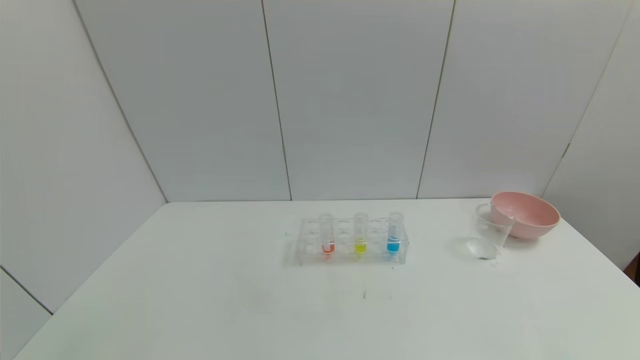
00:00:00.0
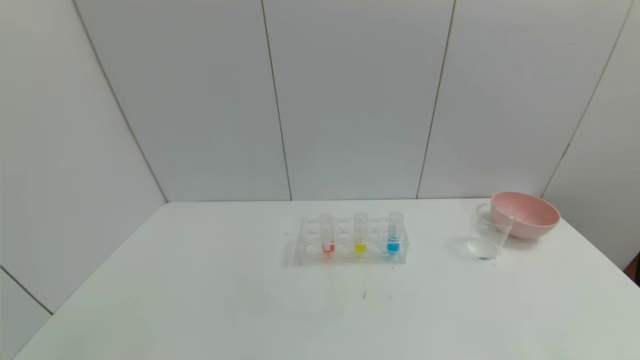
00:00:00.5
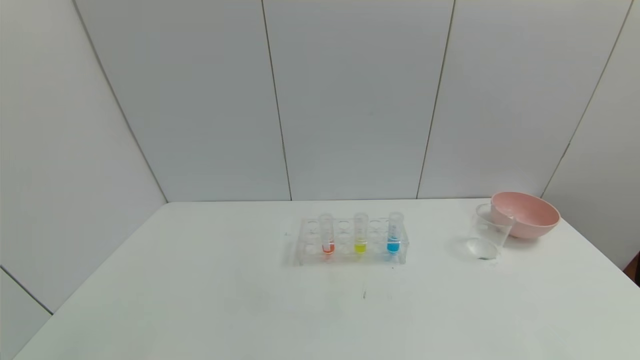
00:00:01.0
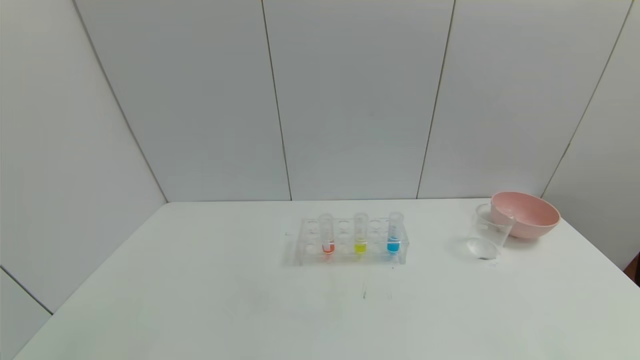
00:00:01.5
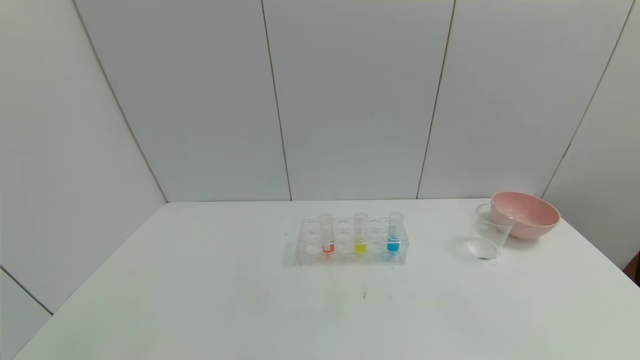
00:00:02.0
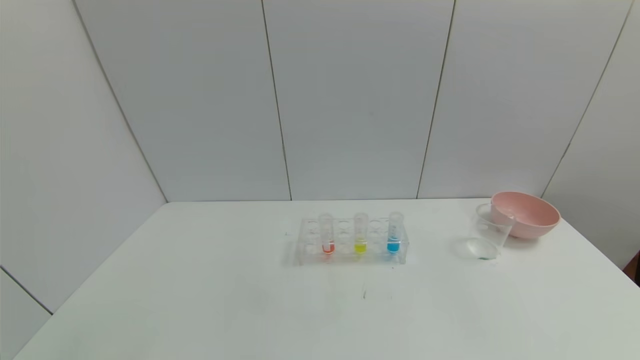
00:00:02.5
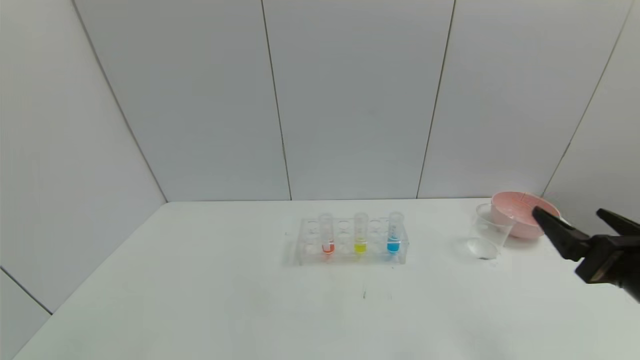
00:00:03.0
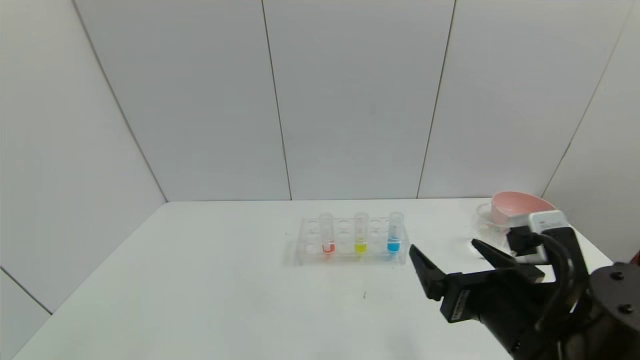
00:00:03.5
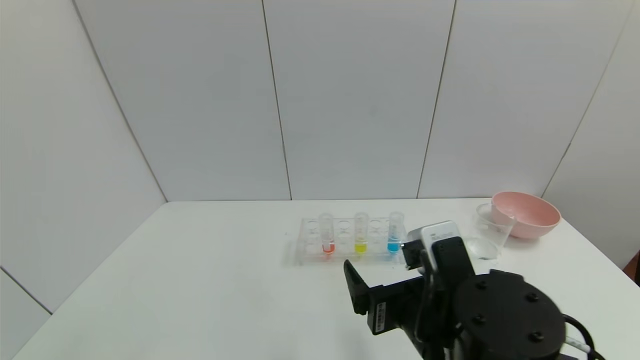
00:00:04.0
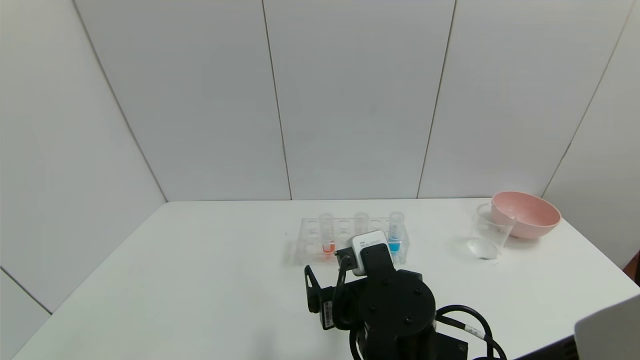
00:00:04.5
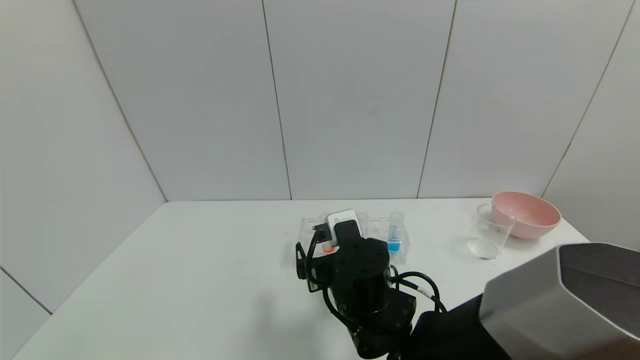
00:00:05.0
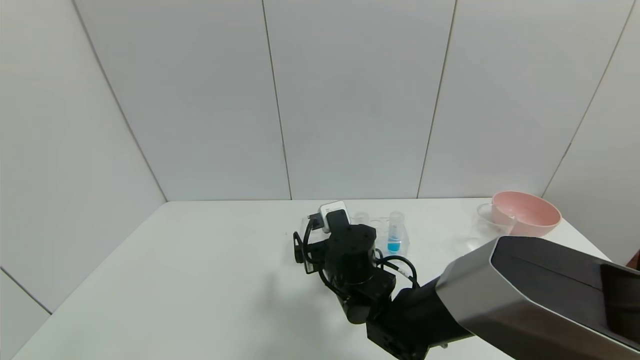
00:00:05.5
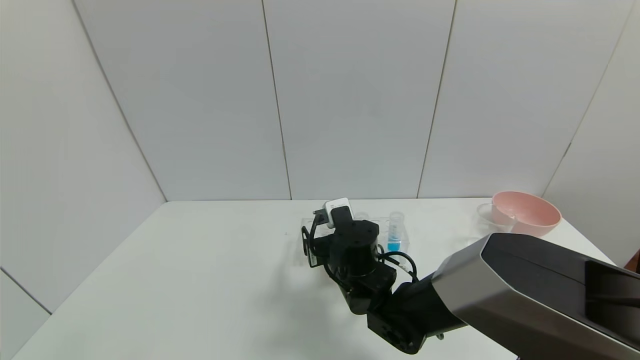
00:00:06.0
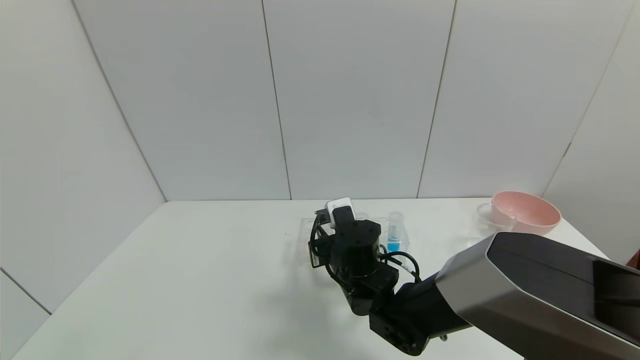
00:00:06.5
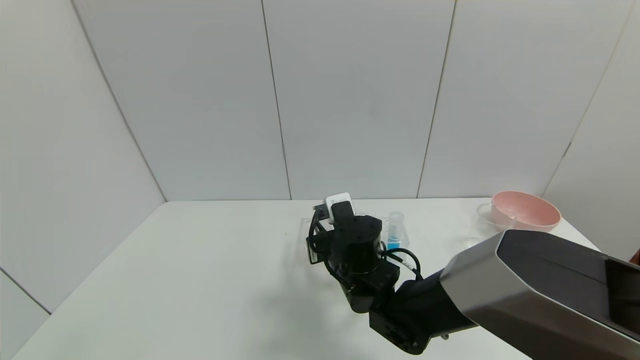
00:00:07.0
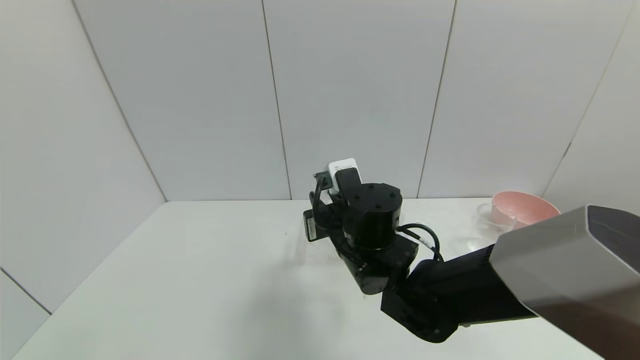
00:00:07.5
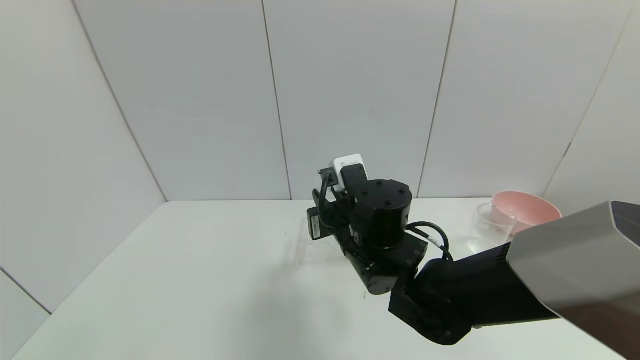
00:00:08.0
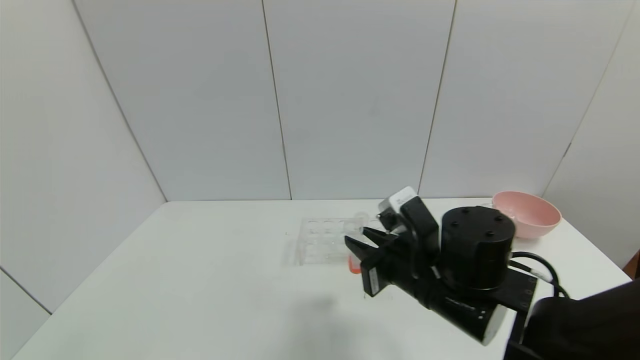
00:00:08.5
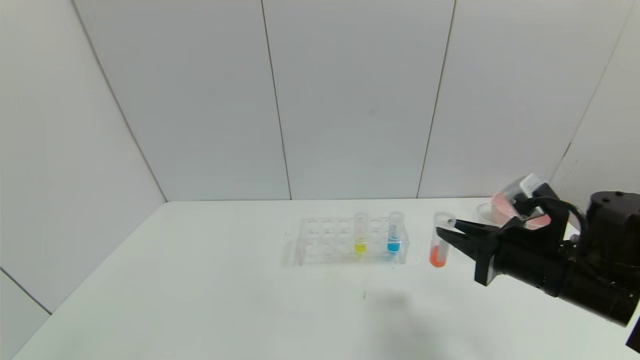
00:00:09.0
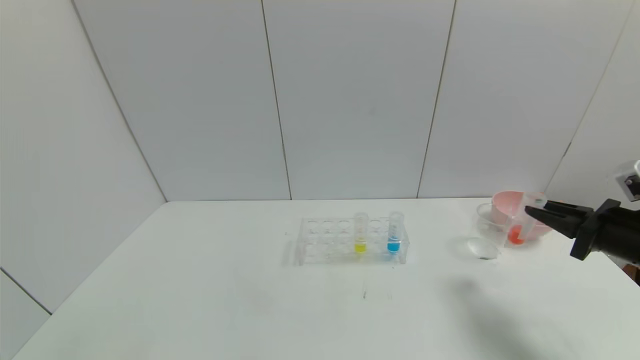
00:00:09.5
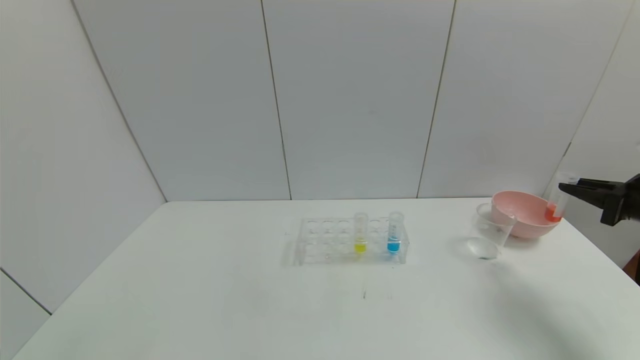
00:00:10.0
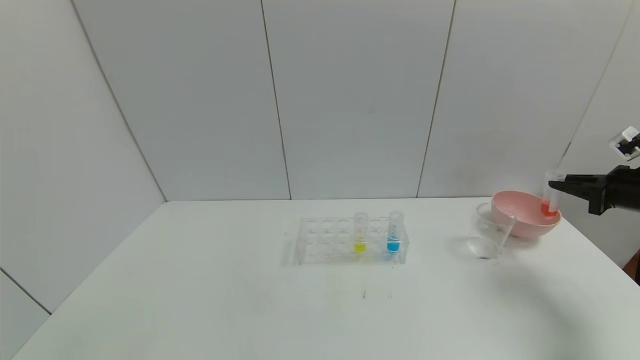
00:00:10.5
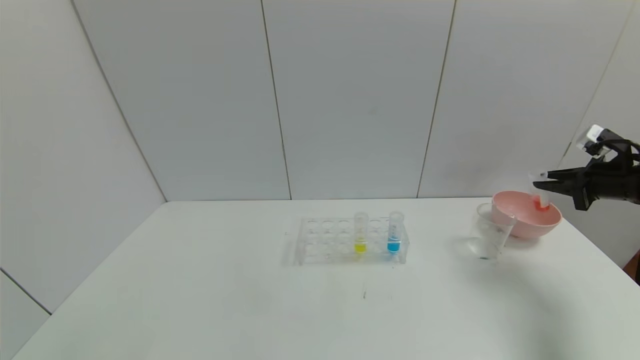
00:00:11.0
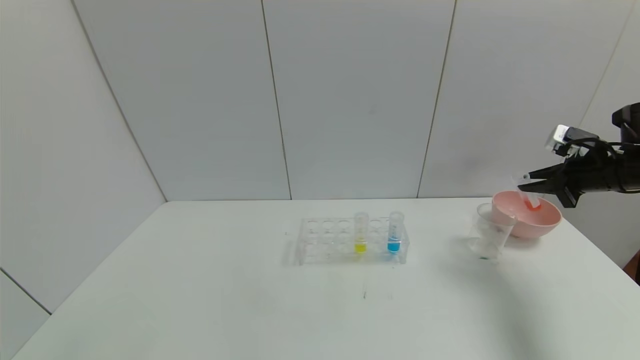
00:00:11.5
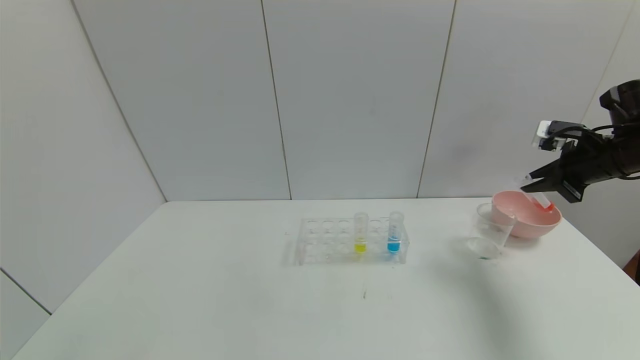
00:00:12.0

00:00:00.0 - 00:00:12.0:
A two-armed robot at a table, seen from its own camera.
Task of the whole recording: pick up the test tube with red pigment and the test tube with blue pigment by grippers and pour them into the container.
Step, 00:00:00.0 - 00:00:10.5: Pick up the test tube containing the red reagent with right gripper.
00:00:02.0 - 00:00:04.0: The right gripper goes approximately 30 cm to the left and forward.
00:00:04.0 - 00:00:06.0: The right gripper heads forward, to the left and downward, covering some 20 cm.
00:00:06.0 - 00:00:08.0: The right gripper is displaced upward by about 10 cm, and closes.
00:00:08.0 - 00:00:10.0: The right gripper travels to the right by approximately 40 cm.
00:00:10.0 - 00:00:12.0: The right gripper is displaced forward, to the left and upward by about 10 cm.

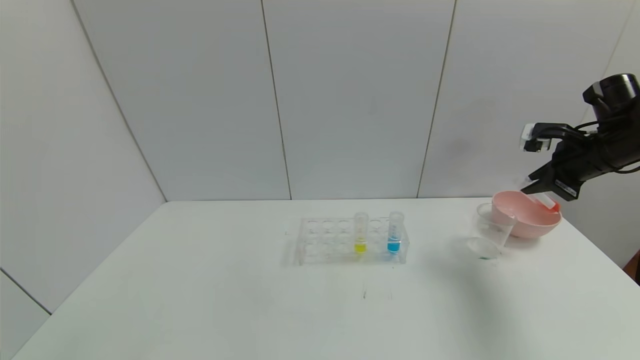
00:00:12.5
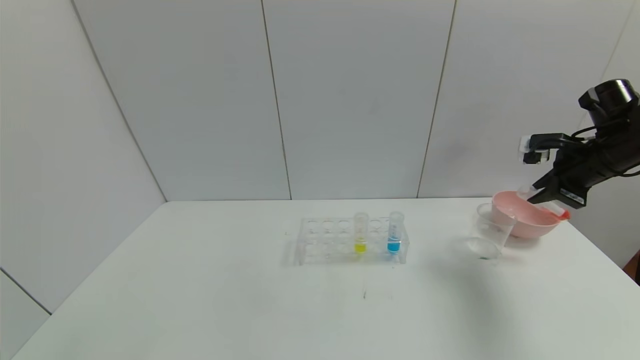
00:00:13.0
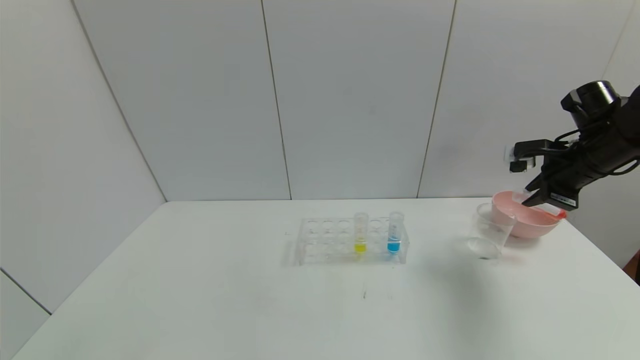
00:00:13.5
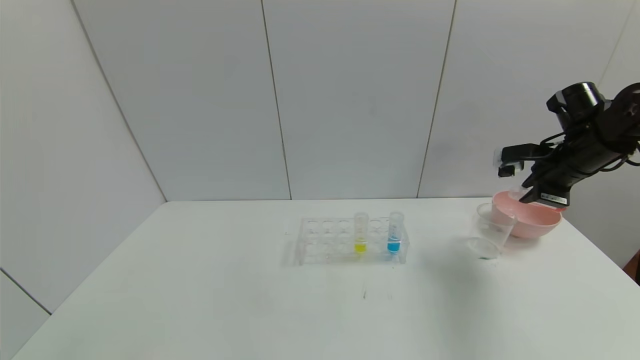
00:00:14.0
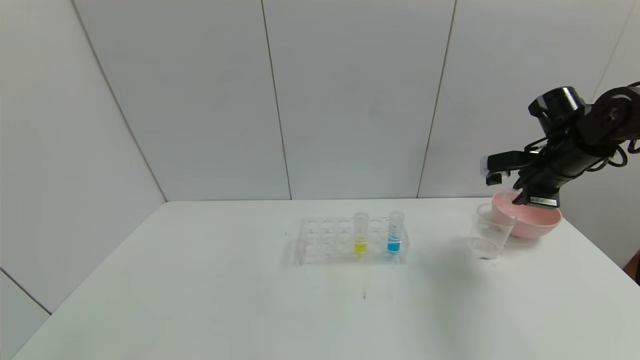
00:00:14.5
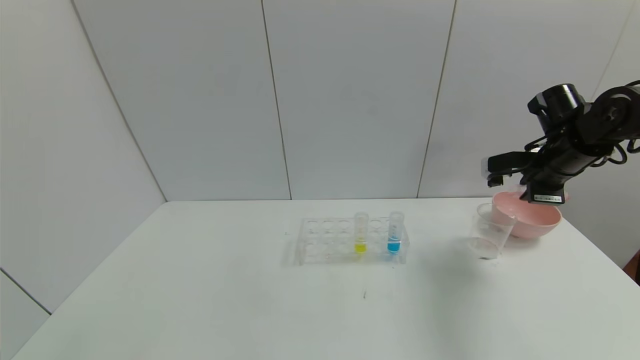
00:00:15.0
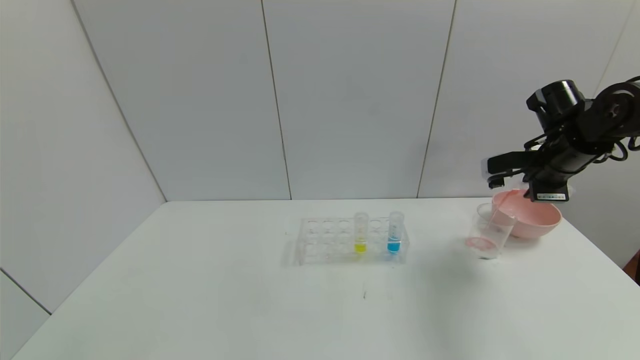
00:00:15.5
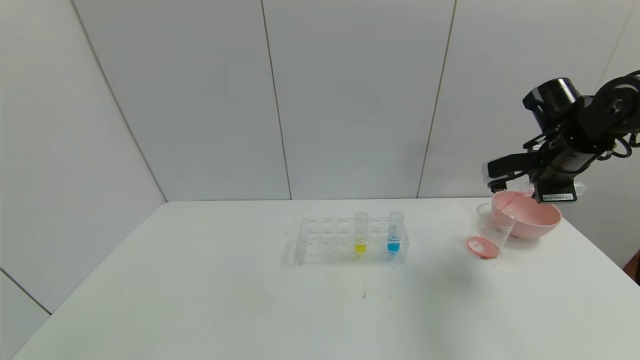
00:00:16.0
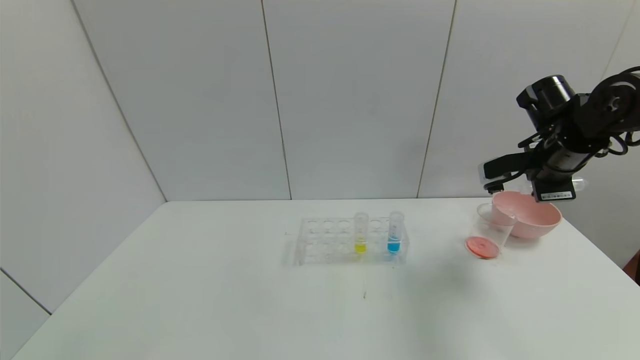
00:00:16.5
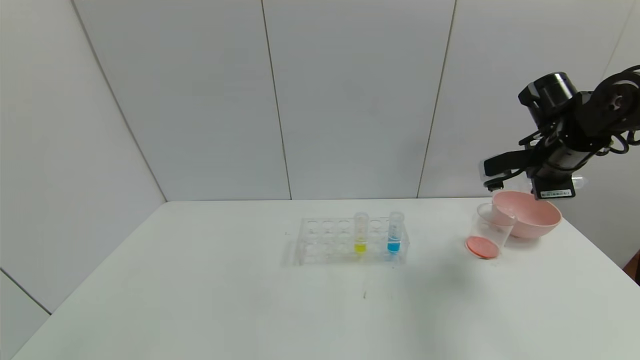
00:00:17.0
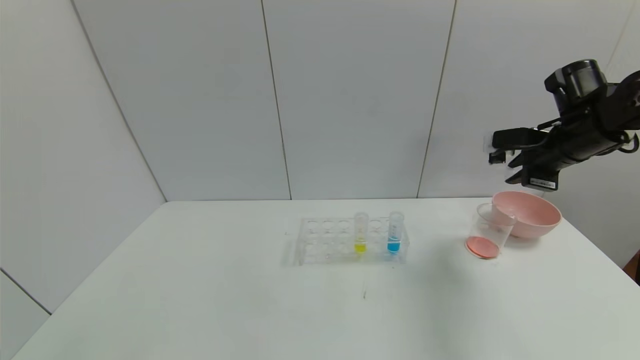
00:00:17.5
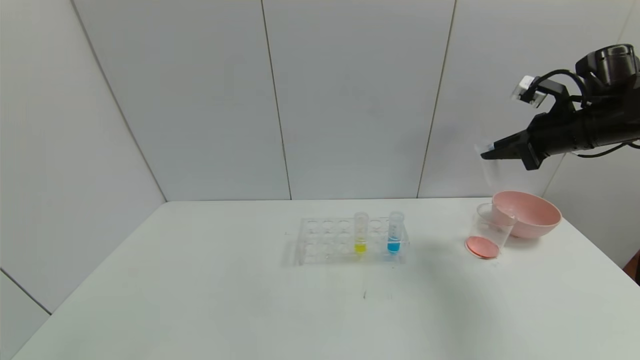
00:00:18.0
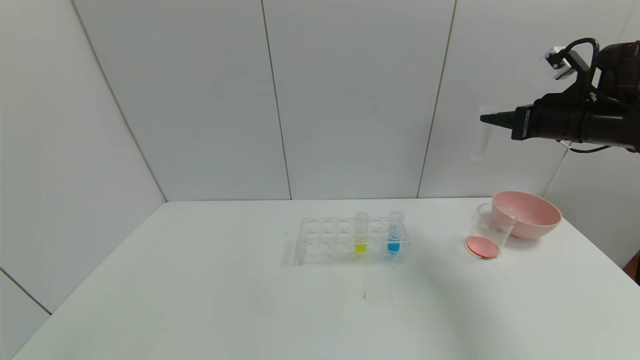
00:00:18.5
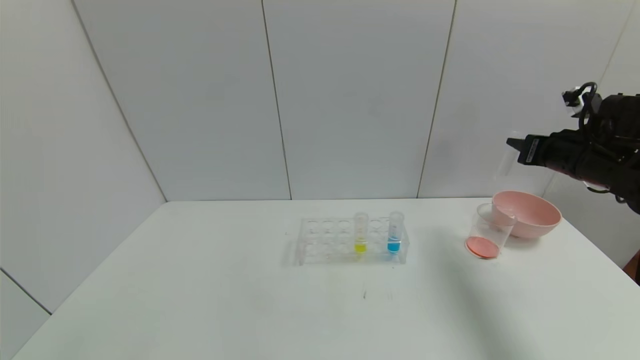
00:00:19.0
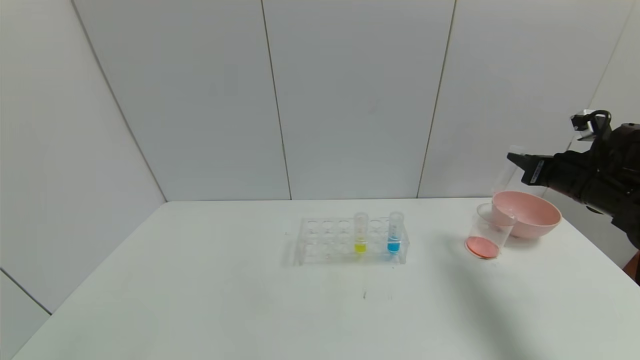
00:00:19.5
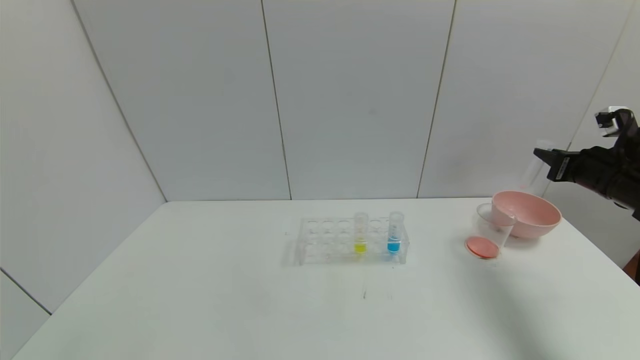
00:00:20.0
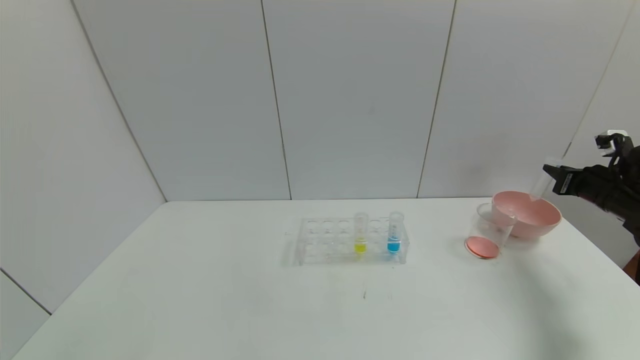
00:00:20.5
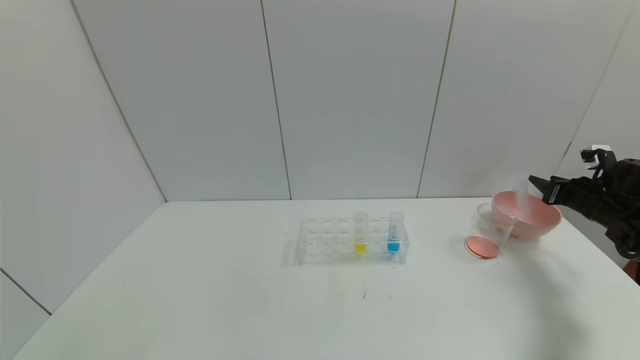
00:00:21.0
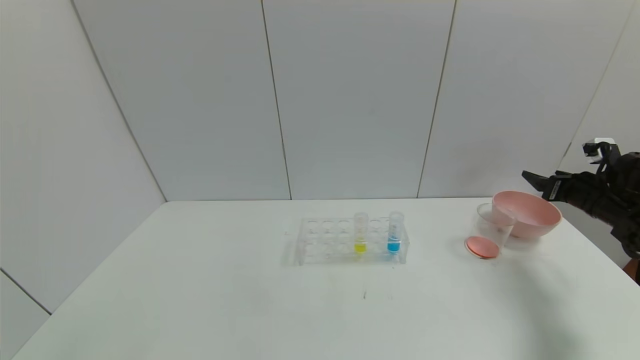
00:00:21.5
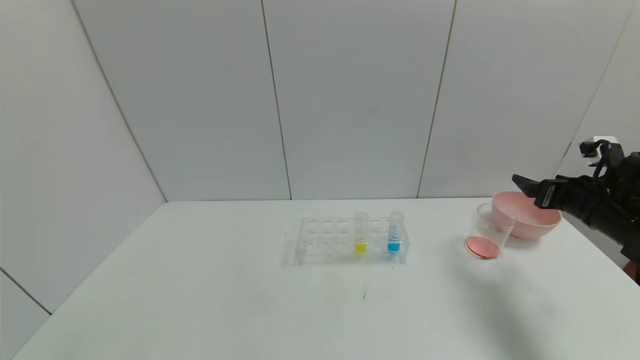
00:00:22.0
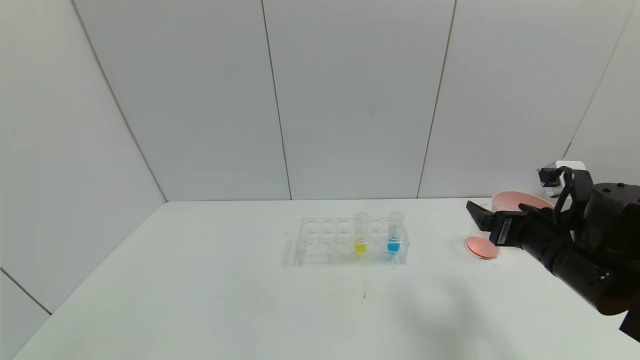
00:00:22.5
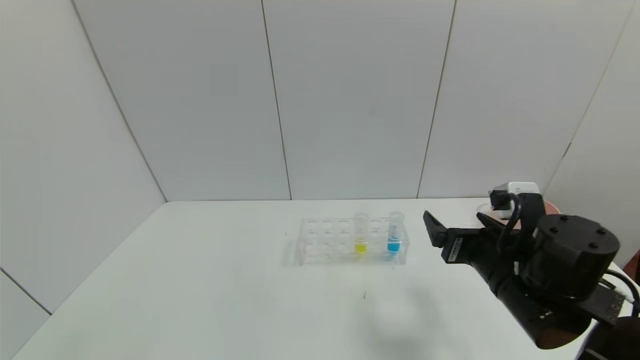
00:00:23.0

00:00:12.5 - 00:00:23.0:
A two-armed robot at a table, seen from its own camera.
Task of the whole recording: pick up the test tube with red pigment and the test tube with blue pigment by grippers and pour them into the container.
Step, 00:00:12.5 - 00:00:17.0: Pour the red reagent into the graduated cylinder with right gripper.
Step, 00:00:17.5 - 00:00:21.5: Place the test tube into the bowl with right gripper.
00:00:12.5 - 00:00:14.5: The right gripper moves roughly 5 cm.
00:00:14.5 - 00:00:16.5: There are only small adjustments of the grippers.
00:00:16.5 - 00:00:19.0: The right gripper moves to the right, roughly 5 cm.
00:00:19.0 - 00:00:21.0: The right gripper travels to the right and downward by approximately 15 cm, and opens up.
00:00:21.0 - 00:00:23.0: The right gripper goes roughly 30 cm to the left and backward, and opens up.
